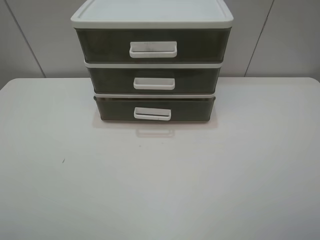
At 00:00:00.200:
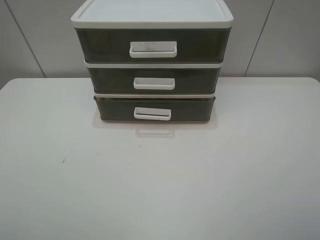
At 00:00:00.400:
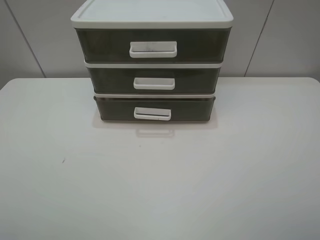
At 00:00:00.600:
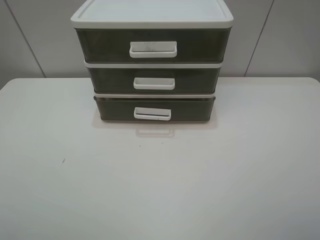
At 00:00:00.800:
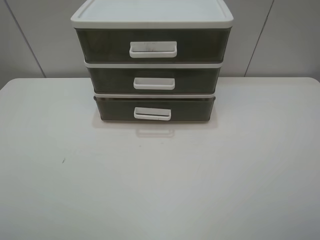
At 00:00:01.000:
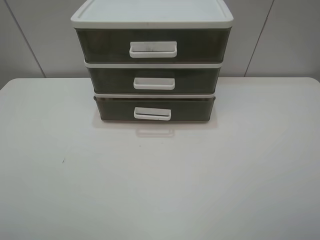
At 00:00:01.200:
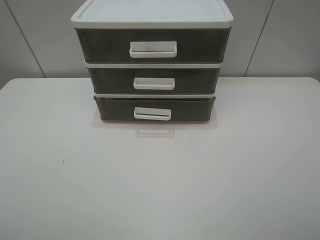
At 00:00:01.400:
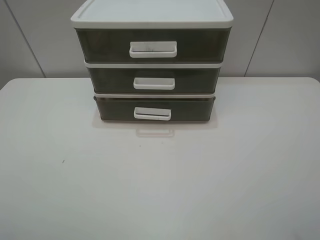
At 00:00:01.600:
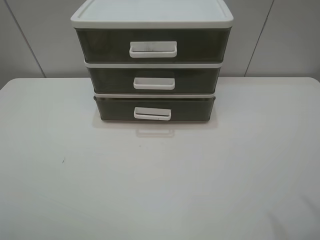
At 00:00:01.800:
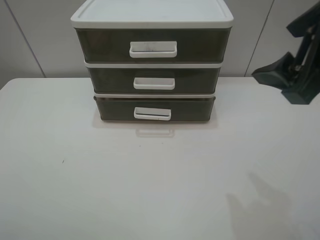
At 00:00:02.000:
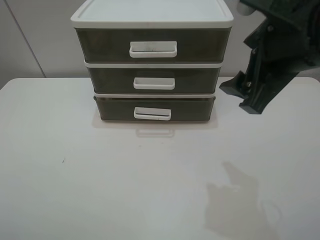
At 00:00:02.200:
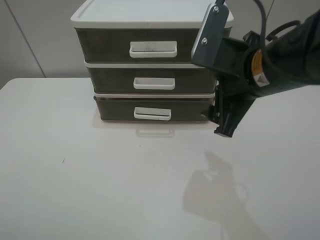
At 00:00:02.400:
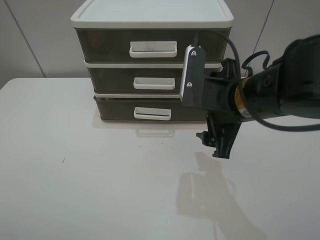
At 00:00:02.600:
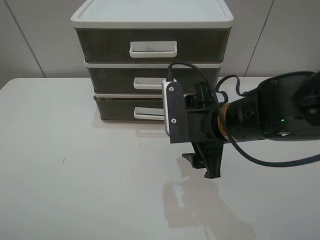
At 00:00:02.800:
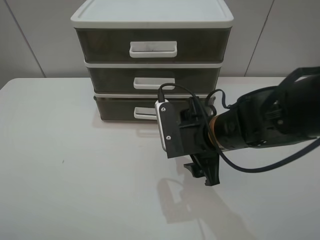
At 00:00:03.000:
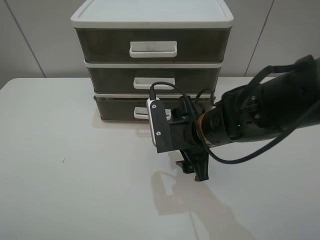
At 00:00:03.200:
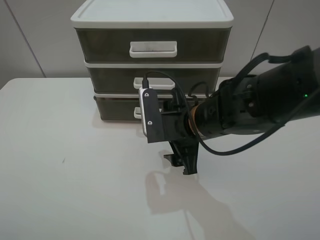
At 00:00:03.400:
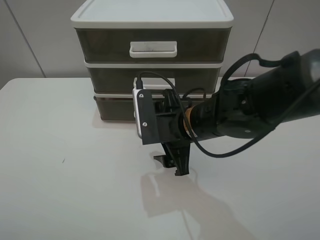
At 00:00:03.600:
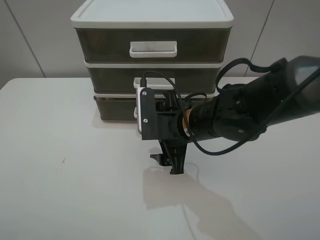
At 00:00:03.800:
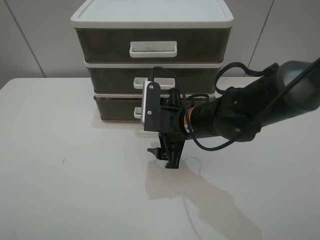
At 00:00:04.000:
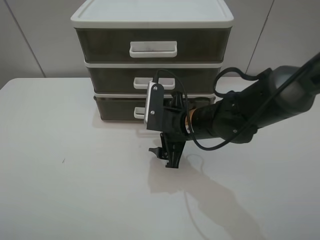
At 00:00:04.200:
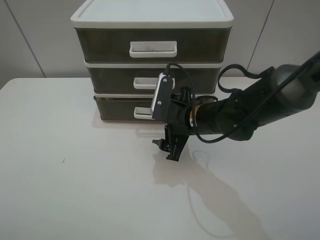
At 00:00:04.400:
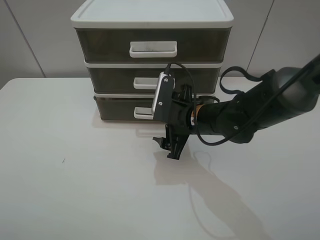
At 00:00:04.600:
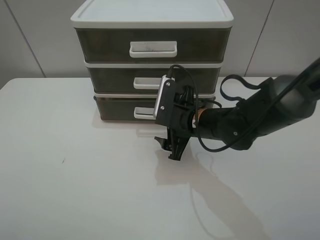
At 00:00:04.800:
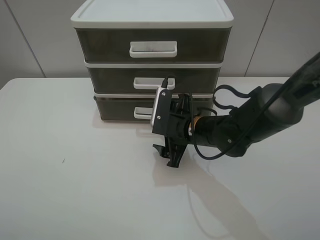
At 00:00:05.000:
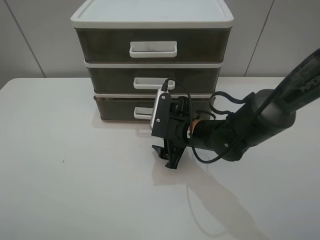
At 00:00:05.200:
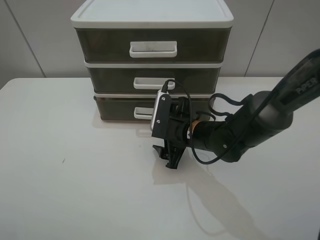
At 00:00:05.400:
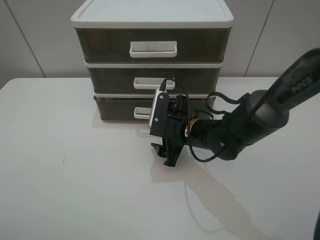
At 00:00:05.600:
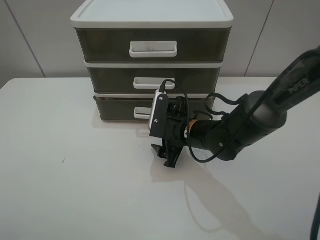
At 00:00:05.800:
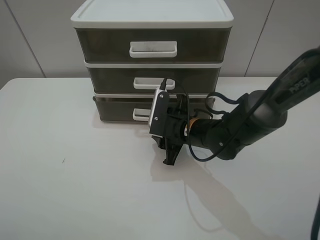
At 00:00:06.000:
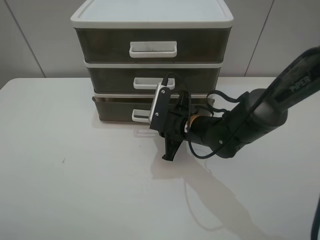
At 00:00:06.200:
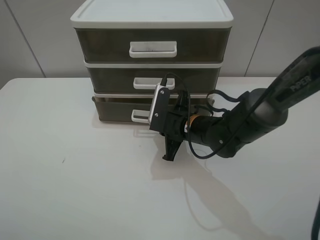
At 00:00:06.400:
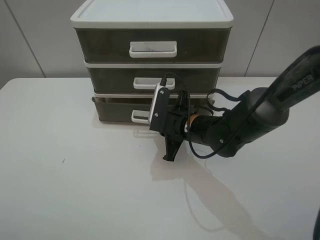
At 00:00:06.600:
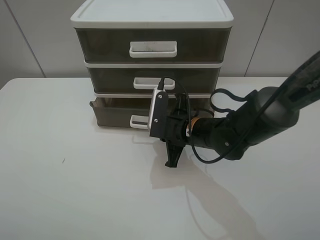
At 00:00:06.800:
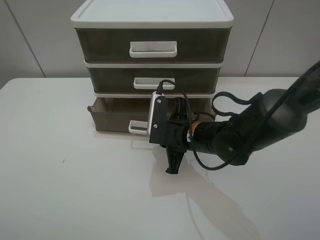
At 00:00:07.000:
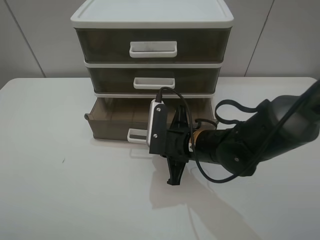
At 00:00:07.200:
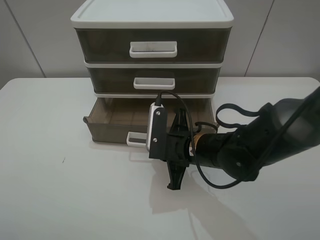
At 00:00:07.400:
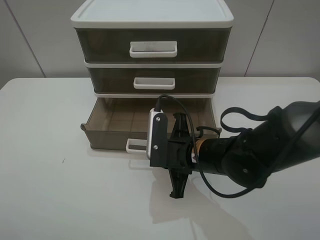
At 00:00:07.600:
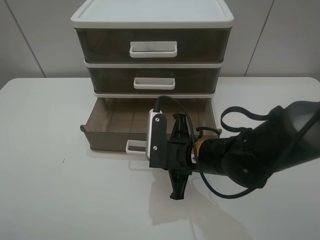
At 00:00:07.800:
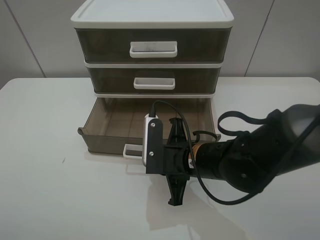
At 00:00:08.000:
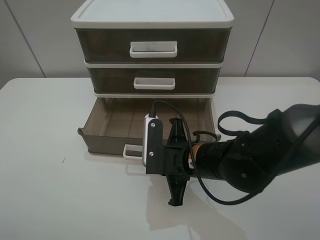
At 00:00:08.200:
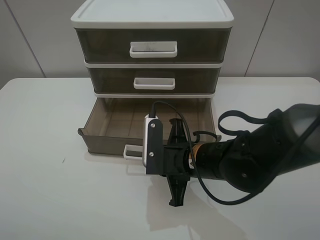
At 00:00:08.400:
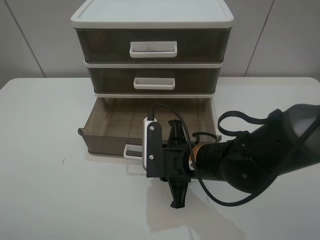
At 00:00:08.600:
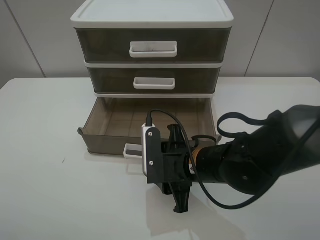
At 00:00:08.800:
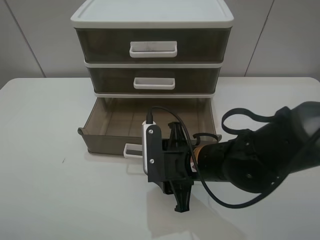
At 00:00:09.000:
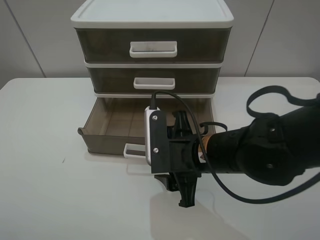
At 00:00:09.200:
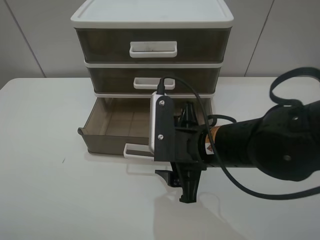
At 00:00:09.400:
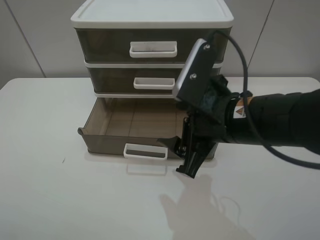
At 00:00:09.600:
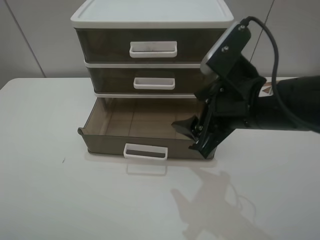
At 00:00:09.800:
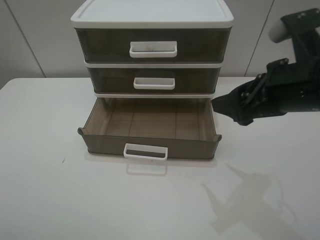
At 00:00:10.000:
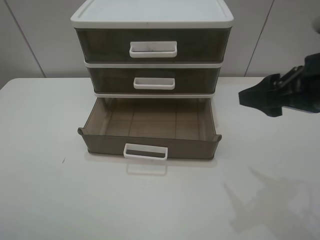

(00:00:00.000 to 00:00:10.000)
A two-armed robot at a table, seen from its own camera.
Task of the whole recording: open the bottom drawer.
Step, 00:00:00.000 - 00:00:06.000: Grab the bottom drawer with the right gripper.
Step, 00:00:06.200 - 00:00:09.000: Pull open the drawer with the right gripper.
00:00:01.400 - 00:00:02.800: The right gripper travels downward, to the left and forward by about 30 cm.
00:00:02.800 - 00:00:04.200: The right gripper heads forward, covering about 5 cm.
00:00:04.200 - 00:00:05.800: The right gripper closes its fingers.
00:00:05.800 - 00:00:07.200: The right gripper shifts about 5 cm backward, and closes.
00:00:07.200 - 00:00:08.600: The right gripper opens.
00:00:08.600 - 00:00:10.000: The right gripper moves upward and to the right, roughly 25 cm.

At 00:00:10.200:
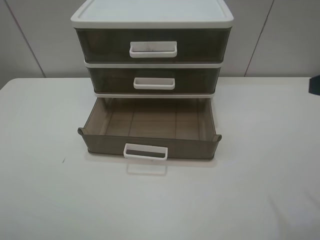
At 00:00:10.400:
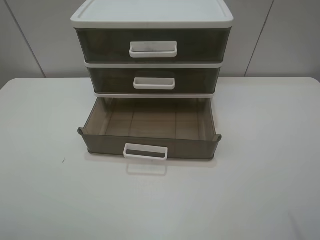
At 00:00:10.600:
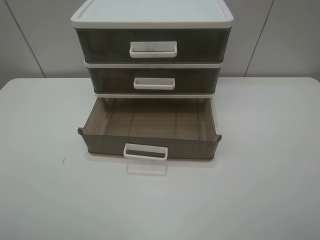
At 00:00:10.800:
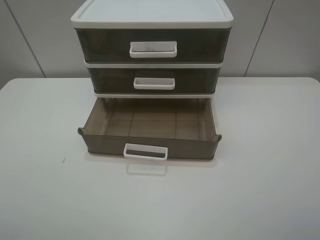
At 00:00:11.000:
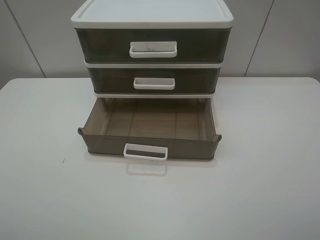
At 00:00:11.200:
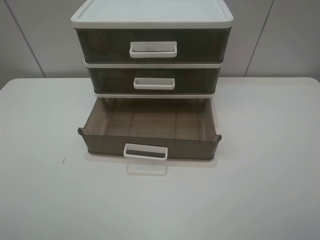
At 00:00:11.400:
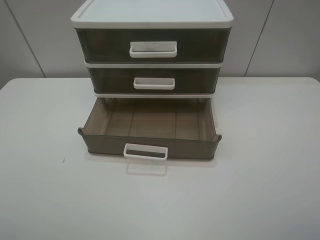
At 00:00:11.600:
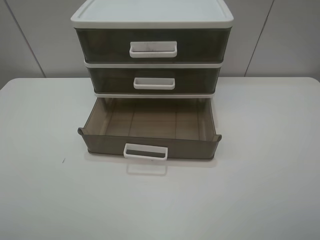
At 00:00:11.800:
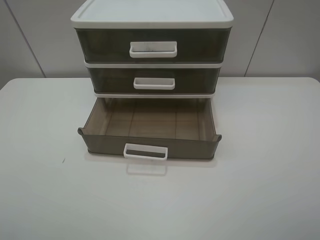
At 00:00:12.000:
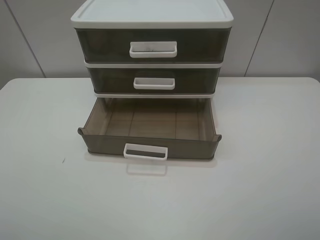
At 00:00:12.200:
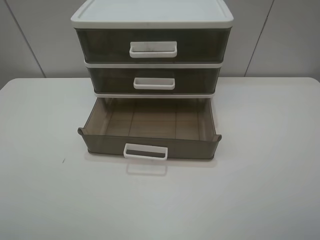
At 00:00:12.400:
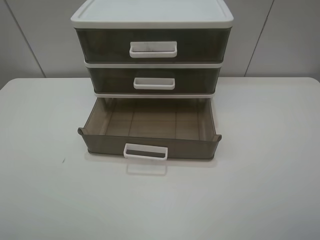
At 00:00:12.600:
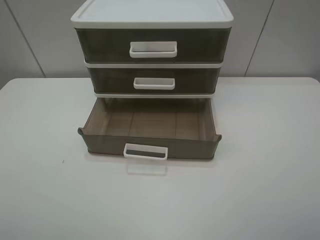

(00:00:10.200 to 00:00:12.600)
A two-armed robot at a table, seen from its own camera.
Task of the whole recording: open the bottom drawer.
00:00:11.400 - 00:00:12.600: Neither gripper changes place.

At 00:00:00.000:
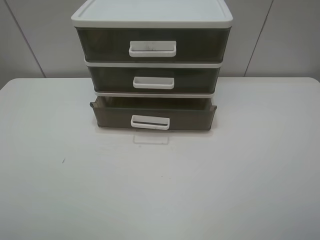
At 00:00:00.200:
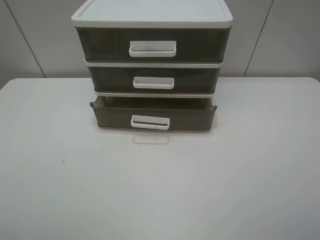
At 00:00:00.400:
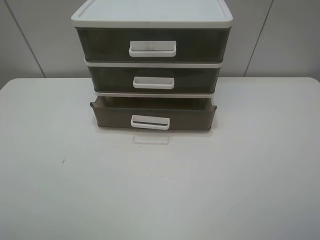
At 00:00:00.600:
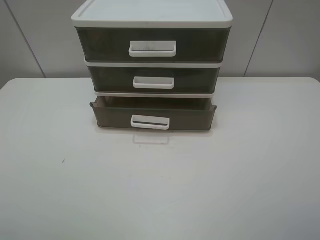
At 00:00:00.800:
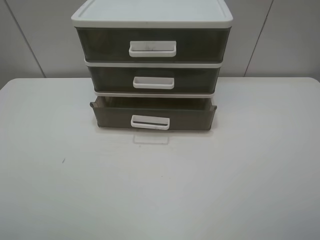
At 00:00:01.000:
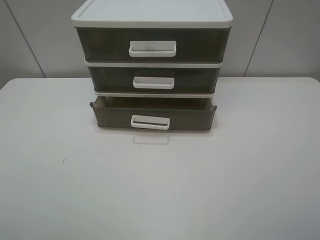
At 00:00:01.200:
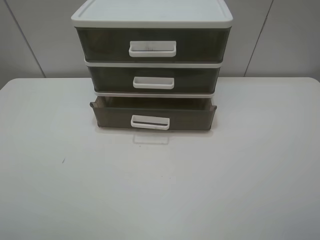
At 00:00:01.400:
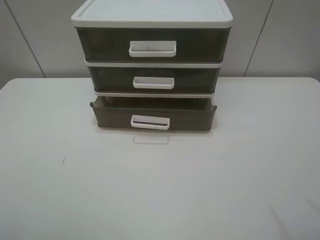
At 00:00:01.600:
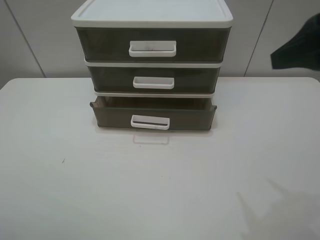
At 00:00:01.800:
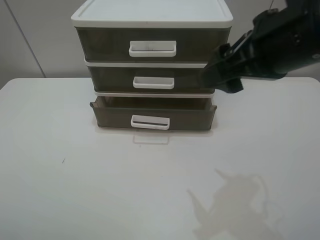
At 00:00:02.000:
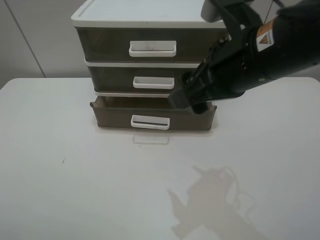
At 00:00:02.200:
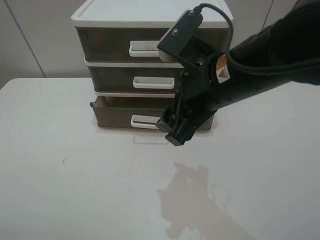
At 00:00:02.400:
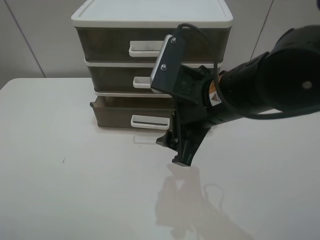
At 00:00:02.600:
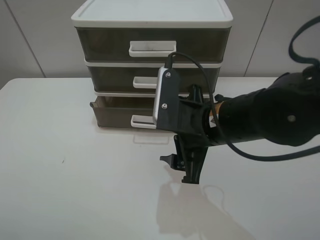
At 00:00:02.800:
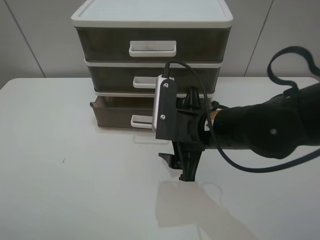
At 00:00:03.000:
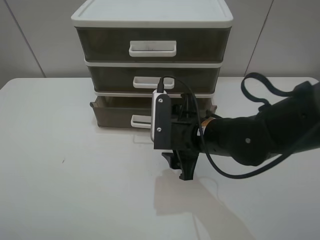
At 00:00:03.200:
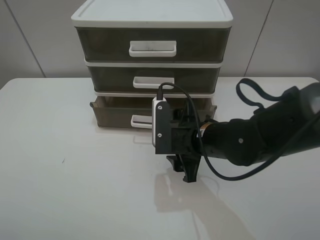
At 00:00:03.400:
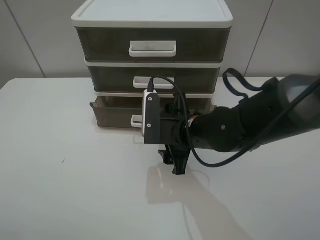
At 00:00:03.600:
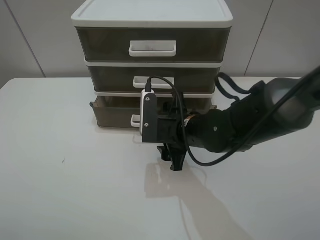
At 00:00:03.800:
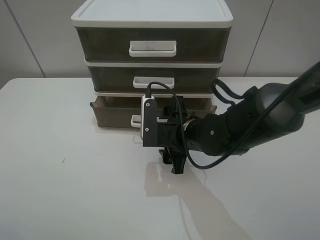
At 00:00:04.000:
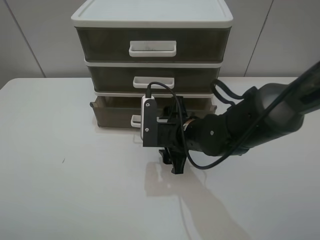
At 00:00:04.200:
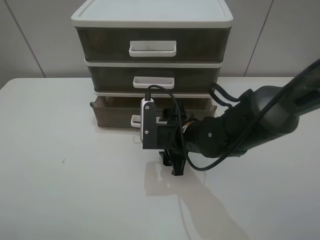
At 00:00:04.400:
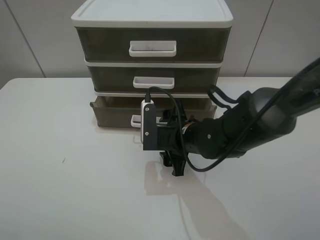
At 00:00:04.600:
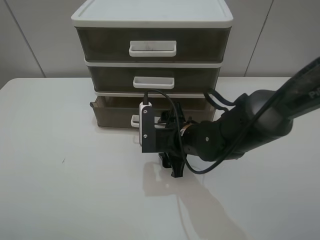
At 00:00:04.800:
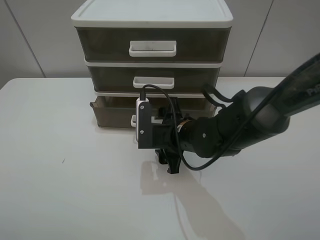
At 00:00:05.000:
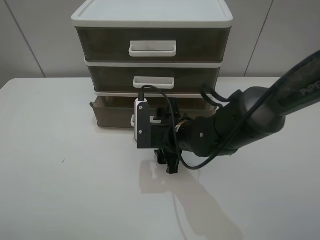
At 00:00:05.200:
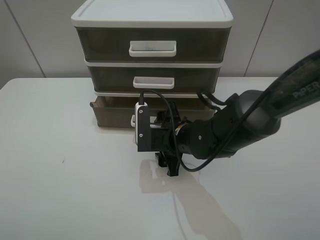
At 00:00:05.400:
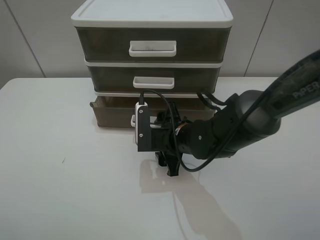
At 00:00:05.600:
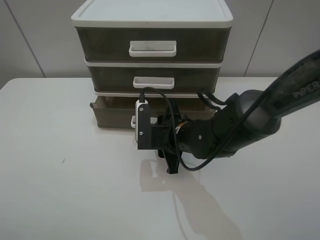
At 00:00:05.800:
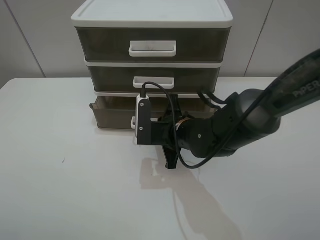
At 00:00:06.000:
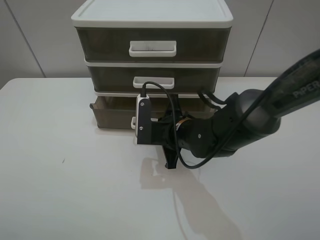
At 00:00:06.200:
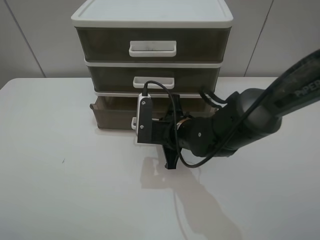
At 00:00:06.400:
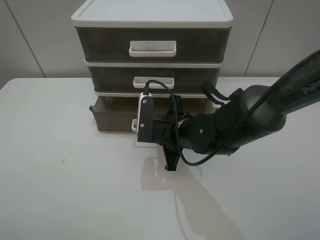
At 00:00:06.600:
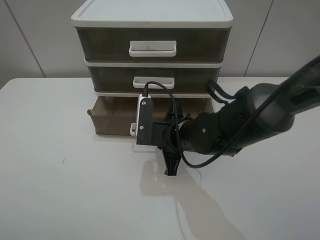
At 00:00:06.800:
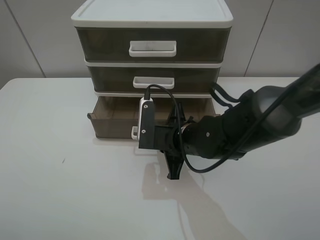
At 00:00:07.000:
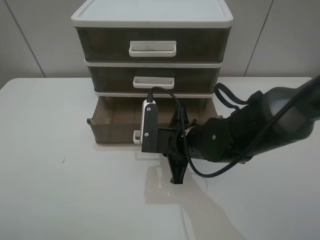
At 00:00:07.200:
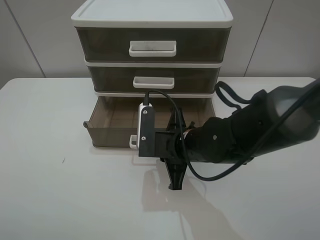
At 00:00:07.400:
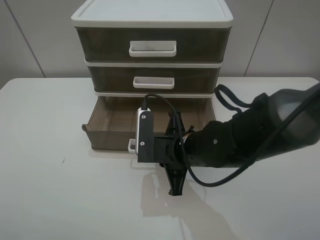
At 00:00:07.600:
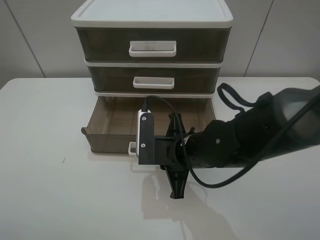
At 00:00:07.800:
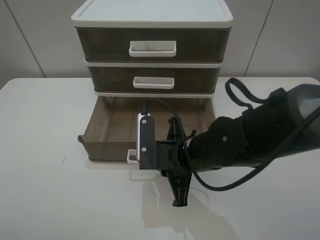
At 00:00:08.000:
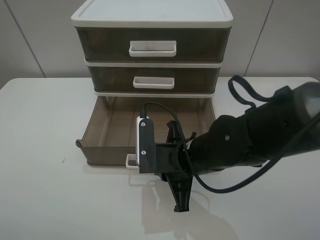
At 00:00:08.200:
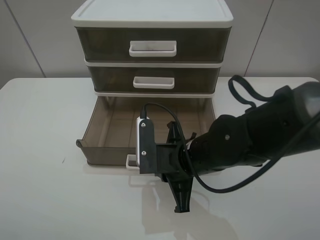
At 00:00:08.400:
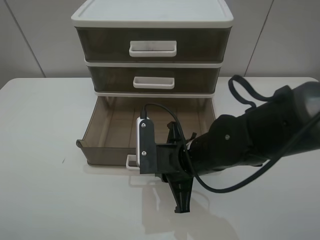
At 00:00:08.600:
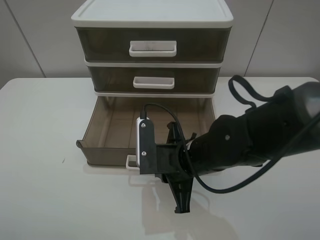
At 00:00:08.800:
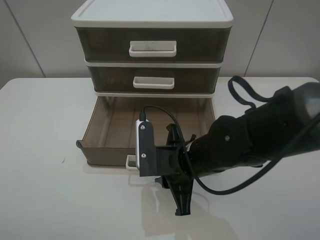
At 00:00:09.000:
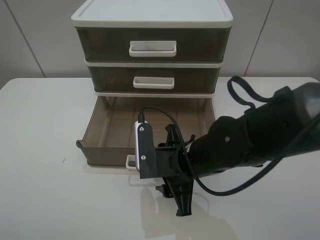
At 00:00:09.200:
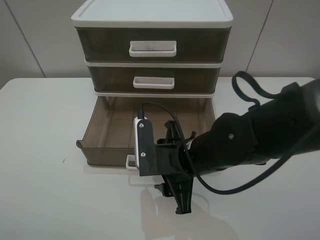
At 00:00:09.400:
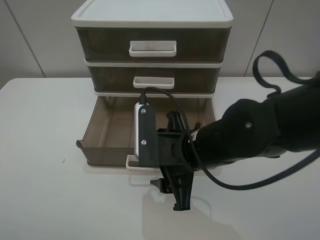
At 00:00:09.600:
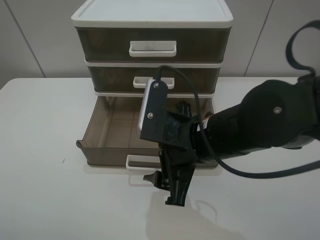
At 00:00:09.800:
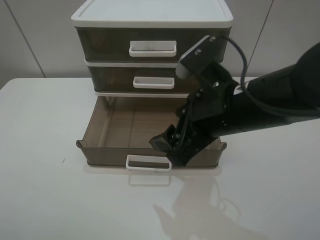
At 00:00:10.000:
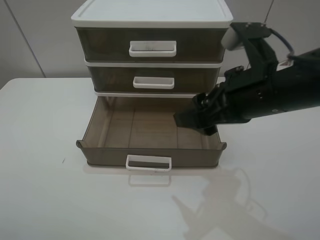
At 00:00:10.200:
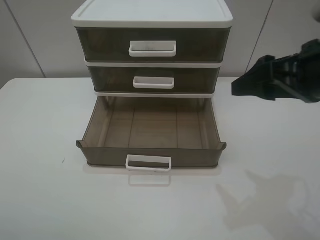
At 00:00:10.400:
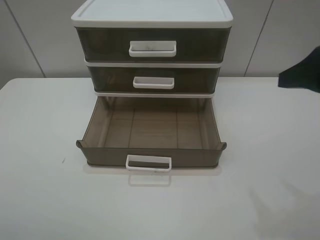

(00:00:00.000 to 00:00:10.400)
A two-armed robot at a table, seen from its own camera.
Task of the whole recording: open the bottom drawer.
Step, 00:00:00.000 - 00:00:06.200: Grab the bottom drawer with the right gripper.
Step, 00:00:06.400 - 00:00:09.600: Pull open the drawer with the right gripper.
00:00:01.400 - 00:00:03.000: The right gripper shifts some 30 cm downward and to the left.
00:00:03.000 - 00:00:04.400: The right gripper ends up some 5 cm from where it was.
00:00:04.400 - 00:00:06.000: The right gripper closes up.
00:00:06.000 - 00:00:07.400: The right gripper heads backward, covering about 5 cm.
00:00:07.400 - 00:00:09.000: The right gripper opens its fingers.
00:00:09.000 - 00:00:10.400: The right gripper goes approximately 30 cm to the right and upward.
